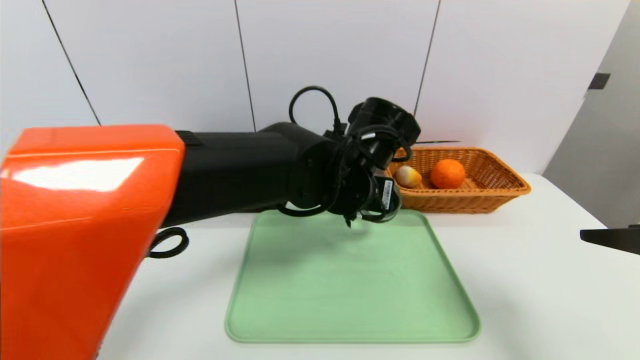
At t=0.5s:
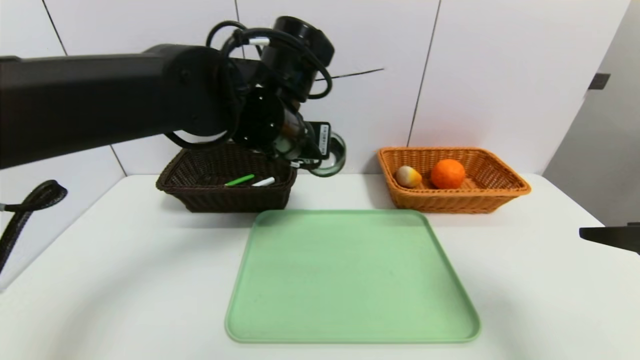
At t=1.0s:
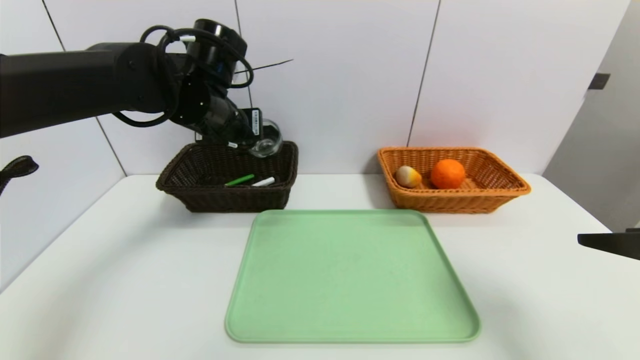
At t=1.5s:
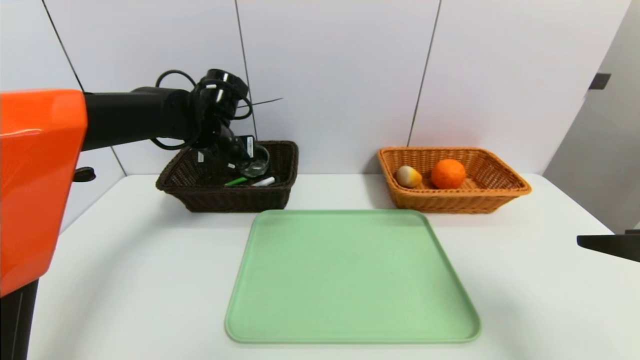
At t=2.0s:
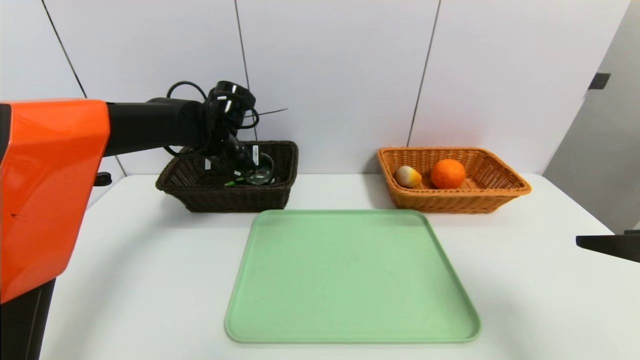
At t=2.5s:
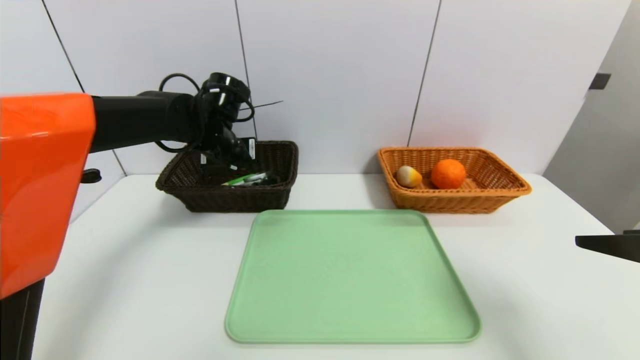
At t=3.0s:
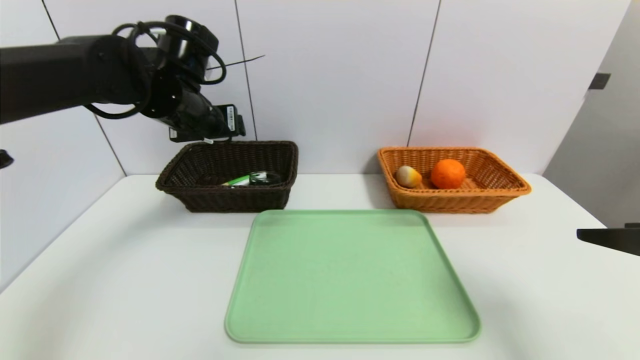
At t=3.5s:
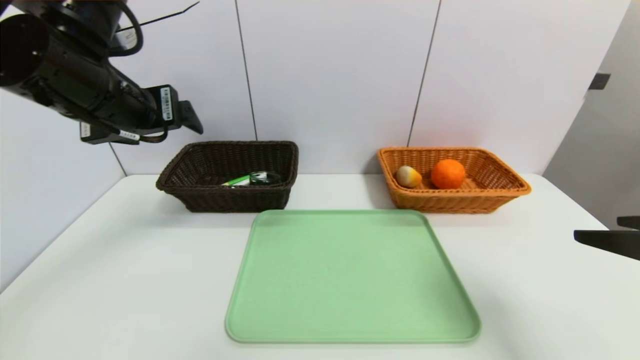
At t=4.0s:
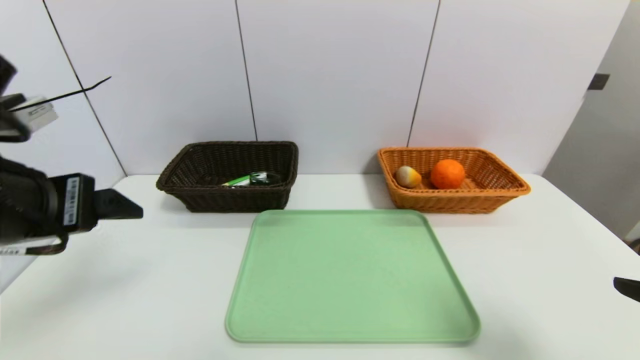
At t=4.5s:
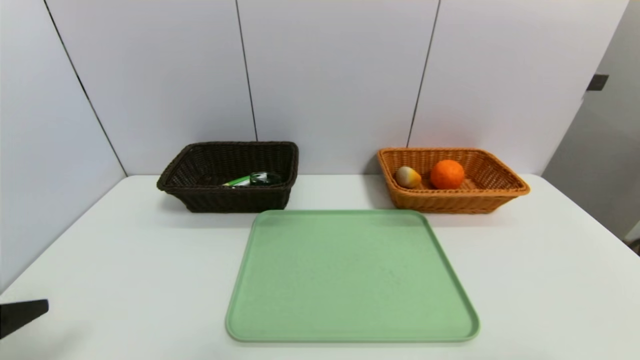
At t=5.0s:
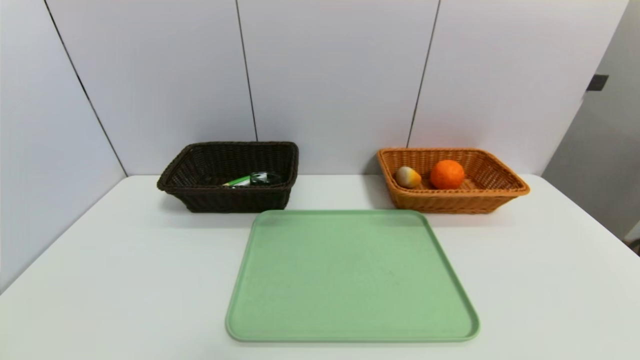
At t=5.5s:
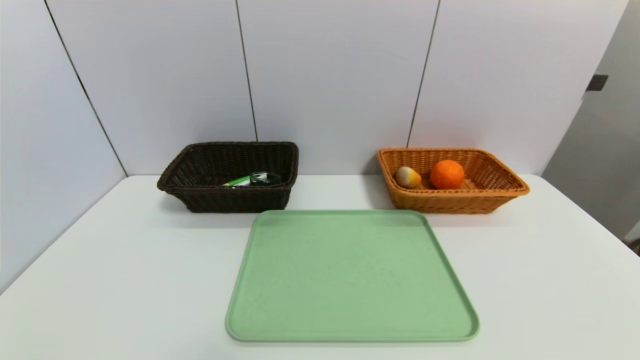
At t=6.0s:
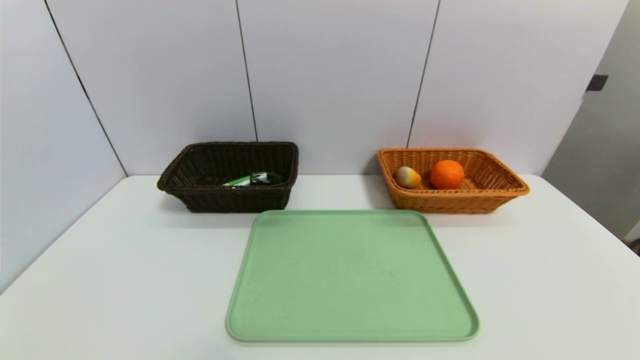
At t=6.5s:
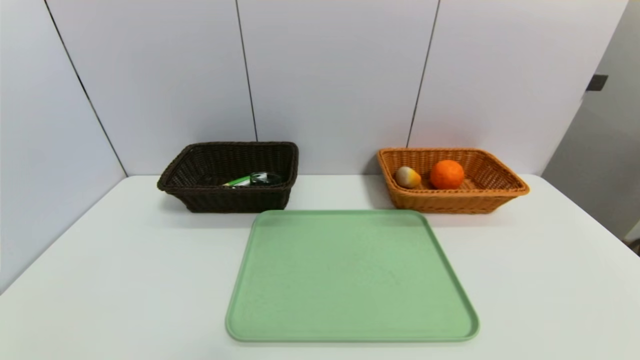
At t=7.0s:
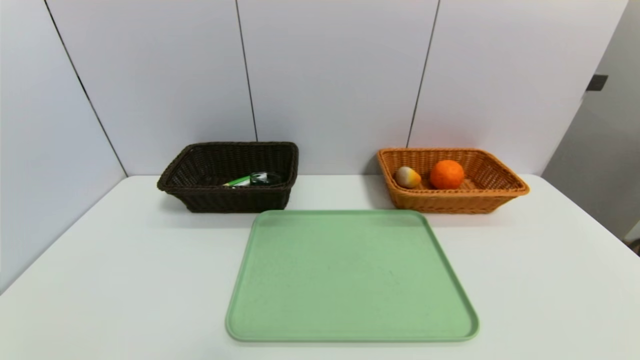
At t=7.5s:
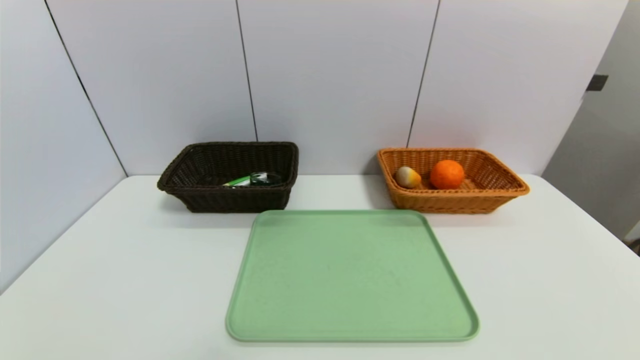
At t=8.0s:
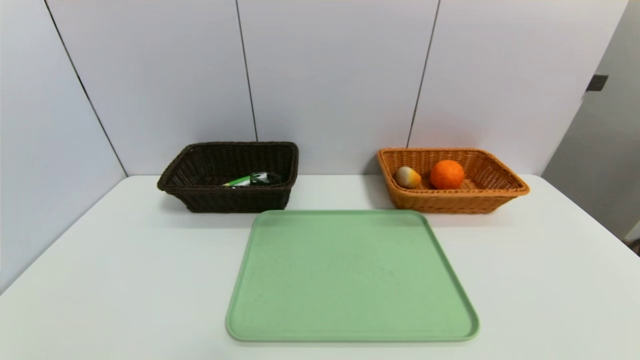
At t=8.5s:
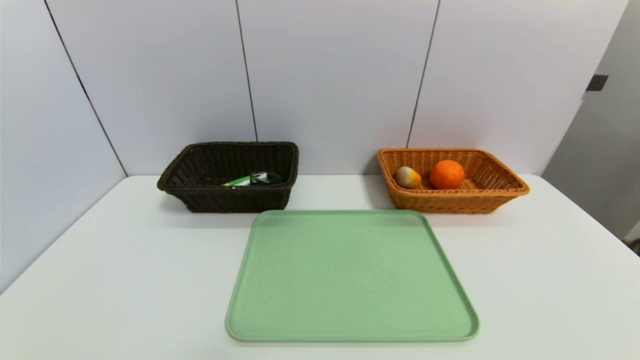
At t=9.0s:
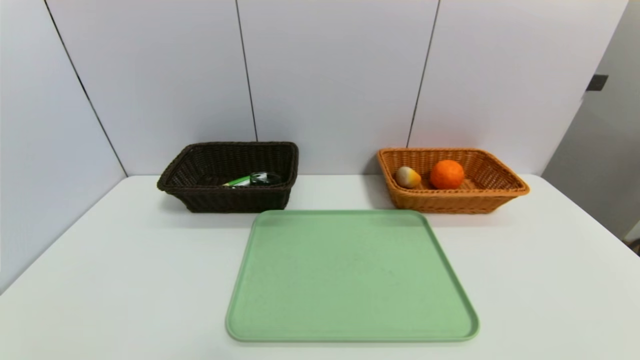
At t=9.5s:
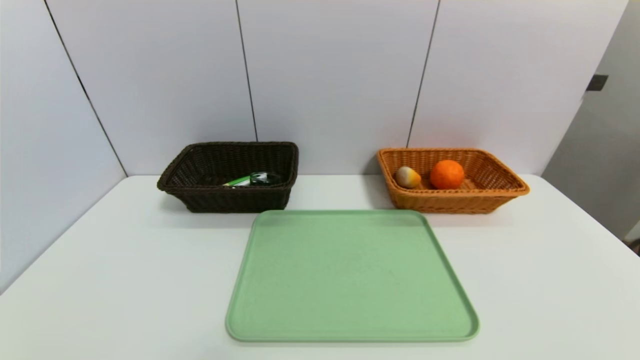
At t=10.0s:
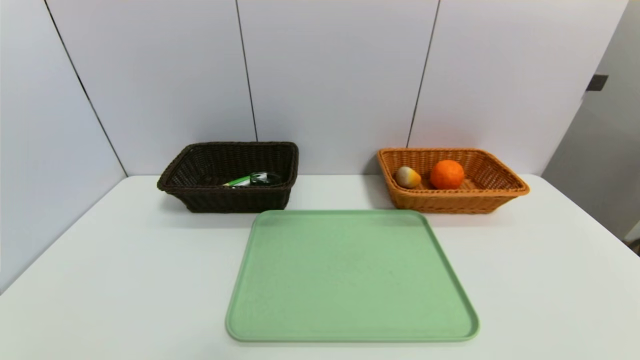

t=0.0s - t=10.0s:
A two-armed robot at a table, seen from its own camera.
Task of the whole recording: place the food in the right basket with the right gripper, and place the non food items in the left basket with the left gripper.
Step, t=0.0s - t=2.5s: Grasp the black glass cup and put it in the left basket.
t=0.0s - t=2.0s: The left gripper goes roughly 25 cm to the left and forward.
t=2.0s - t=4.0s: The left gripper shifts approximately 30 cm backward, and opens its fingers; the right gripper heads backward, covering about 5 cm.
t=4.0s - t=6.0s: The left gripper is displaced backward and downward by about 30 cm, while the right gripper shifts approximately 15 cm backward and downward.

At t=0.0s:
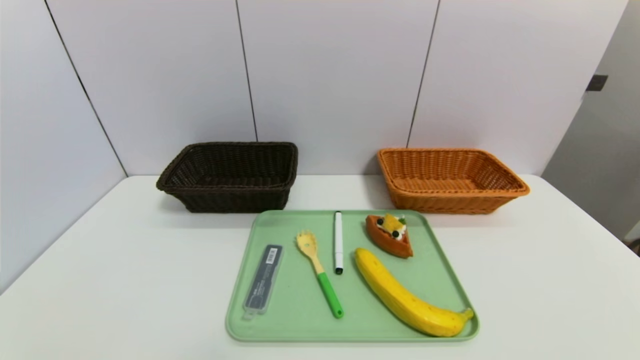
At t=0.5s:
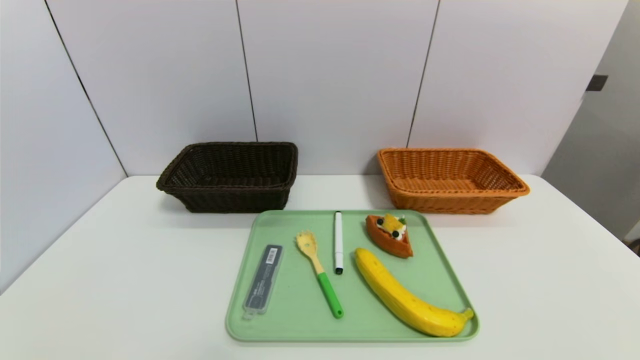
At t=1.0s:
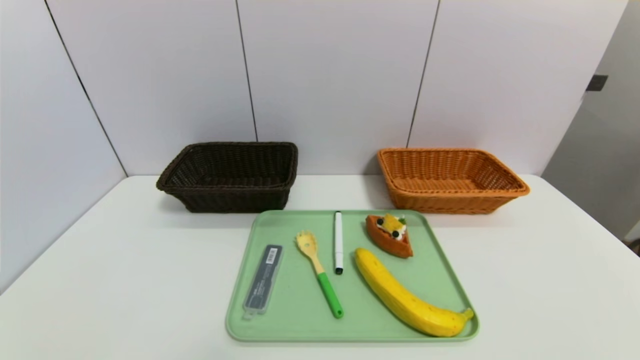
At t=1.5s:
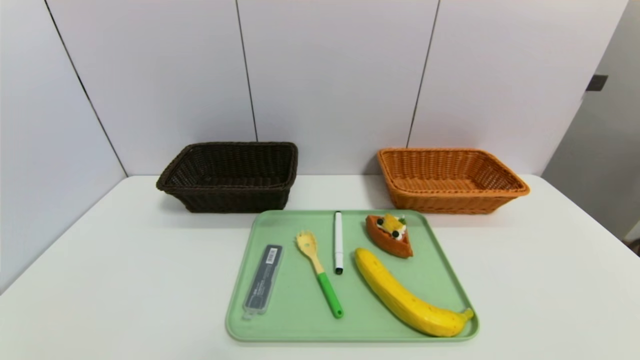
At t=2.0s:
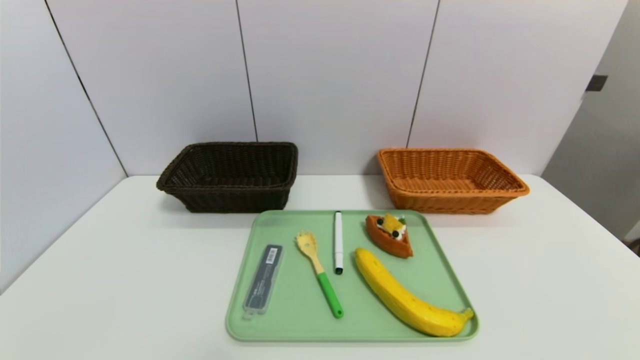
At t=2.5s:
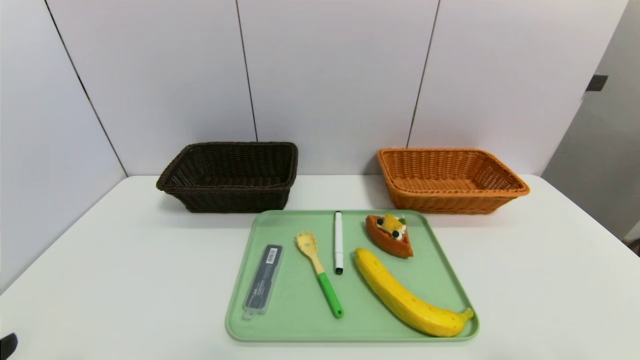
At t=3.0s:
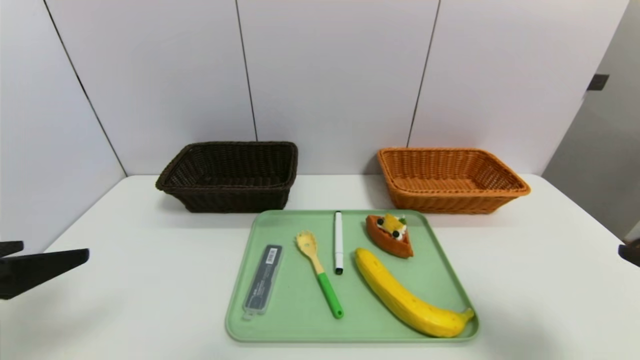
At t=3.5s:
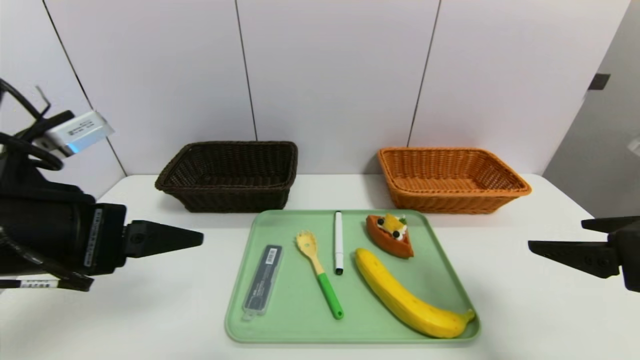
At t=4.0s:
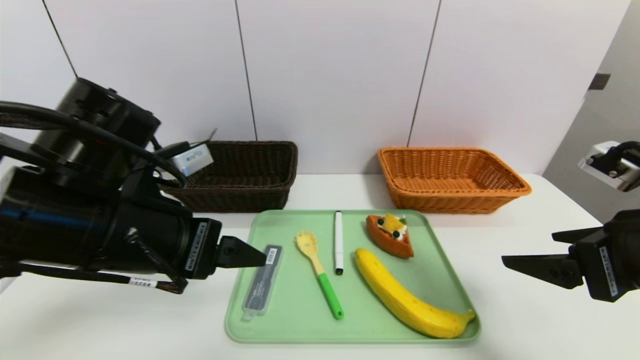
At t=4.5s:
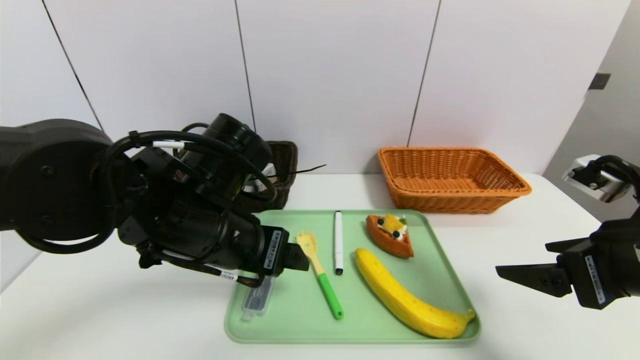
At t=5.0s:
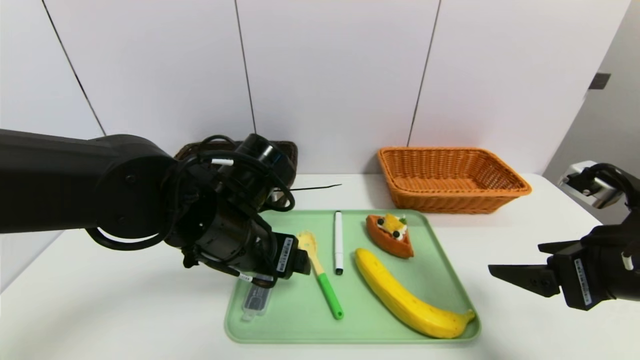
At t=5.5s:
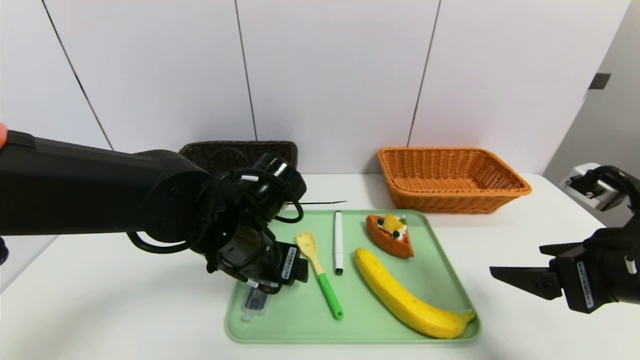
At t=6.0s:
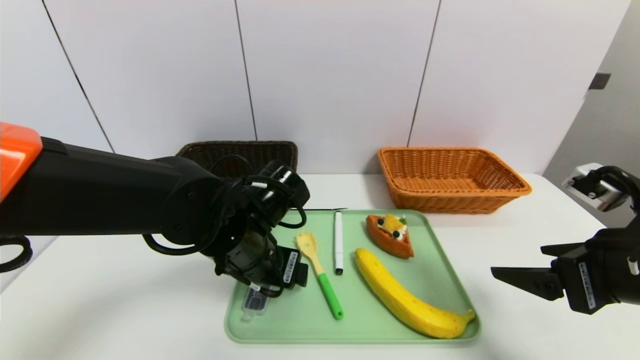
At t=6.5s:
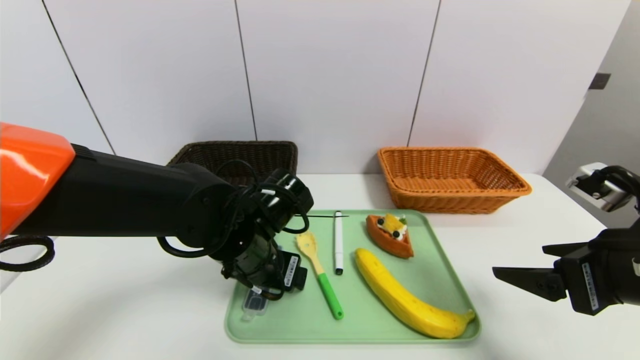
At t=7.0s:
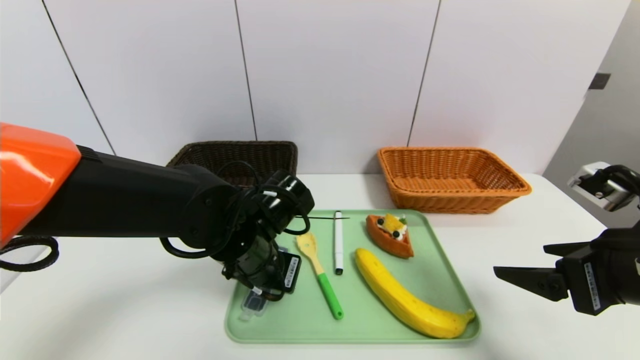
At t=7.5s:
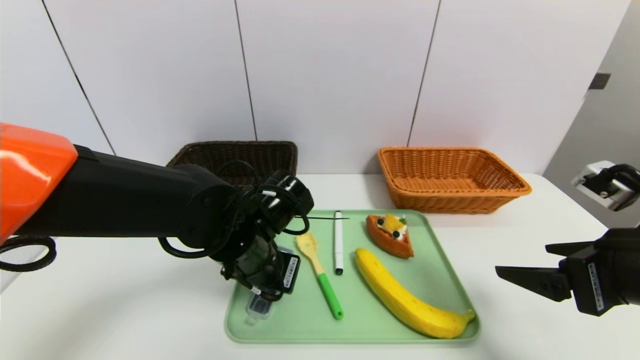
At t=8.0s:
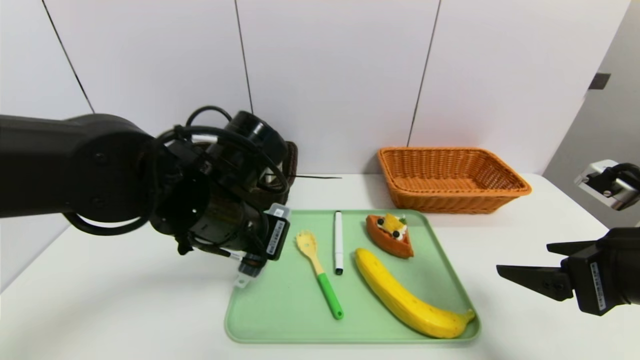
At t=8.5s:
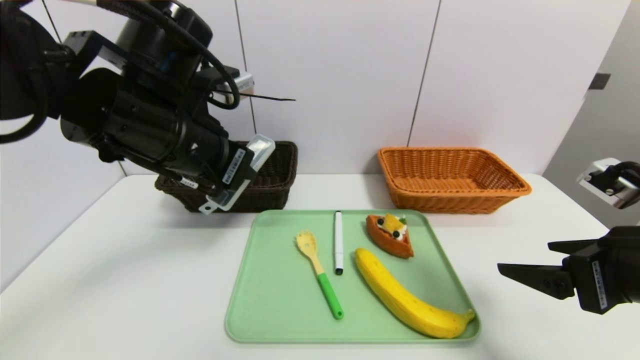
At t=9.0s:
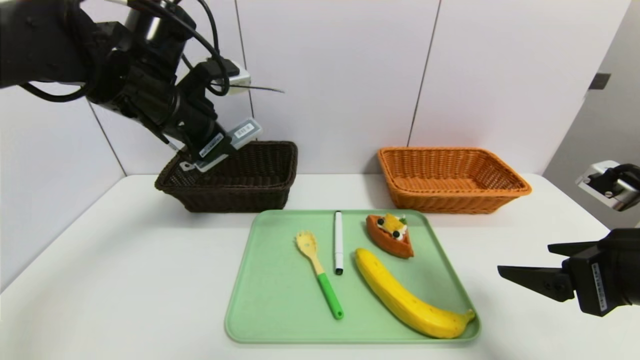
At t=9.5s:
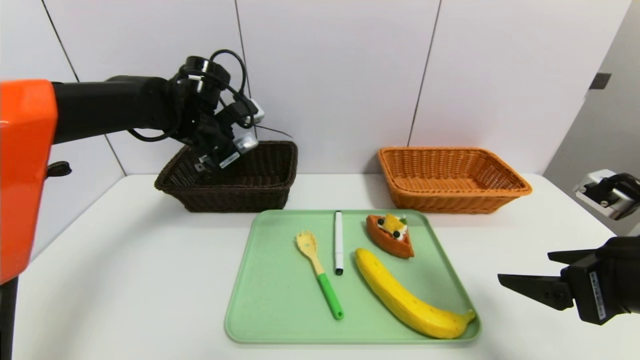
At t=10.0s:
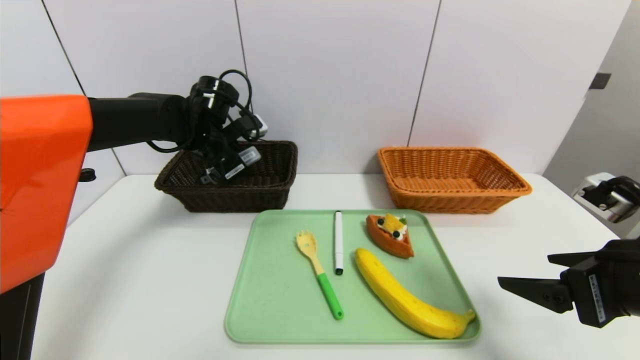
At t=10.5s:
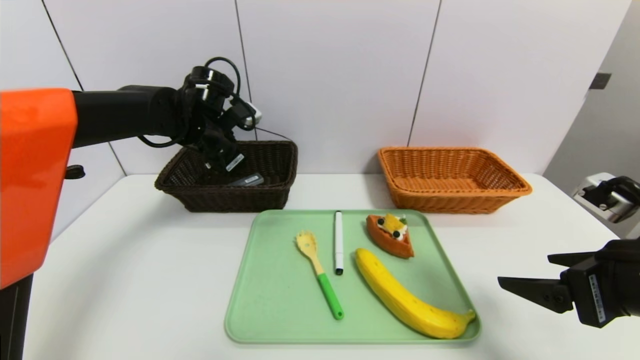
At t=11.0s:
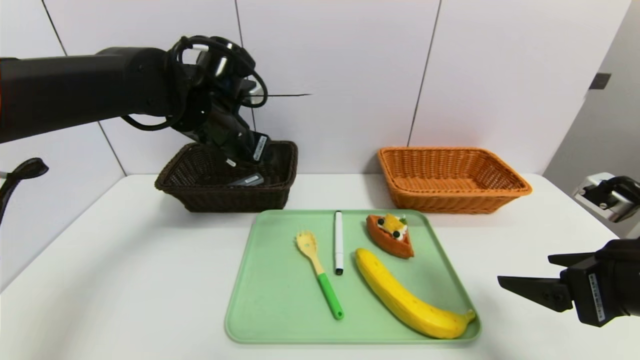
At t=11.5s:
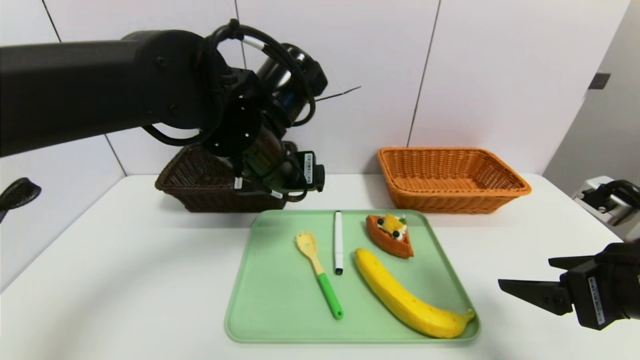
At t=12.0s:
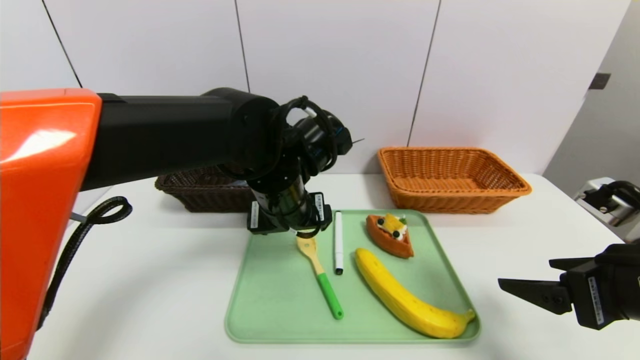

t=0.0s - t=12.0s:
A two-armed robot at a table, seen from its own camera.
Task of the whole recording: place the food in the right basket with the right gripper, and place the non food items in the left basket with the left gripper.
Step, t=0.0s - t=10.0s: Grasp the compass and put it in the left basket.
t=2.0s - t=4.0s: The left gripper travels forward, to the right and upward by approximately 30 cm; the right gripper travels forward and upward by approximately 20 cm.
t=4.0s - t=6.0s: The left gripper travels downward, to the right and forward by approximately 15 cm.
t=6.0s - t=8.0s: The left gripper shifts approximately 5 cm upward, and closes its fingers.
t=8.0s - t=10.0s: The left gripper shifts approximately 20 cm forward and to the left.
t=10.0s - t=12.0s: The left gripper moves to the right and backward, approximately 20 cm, and opens.
